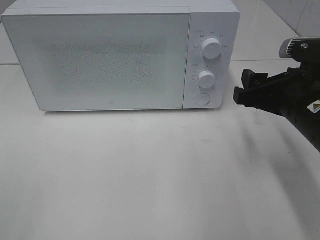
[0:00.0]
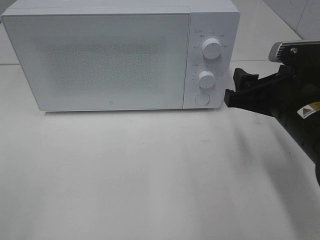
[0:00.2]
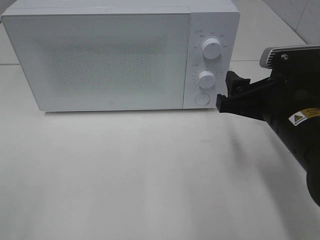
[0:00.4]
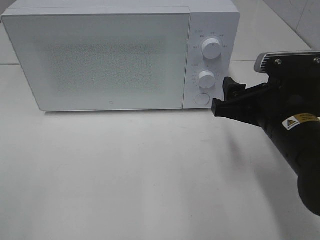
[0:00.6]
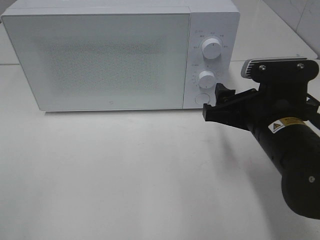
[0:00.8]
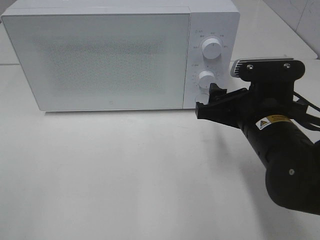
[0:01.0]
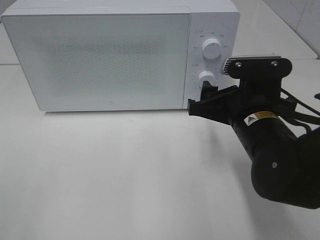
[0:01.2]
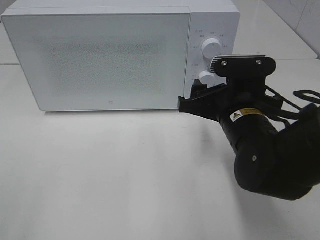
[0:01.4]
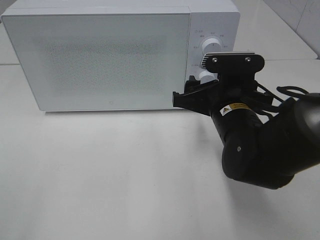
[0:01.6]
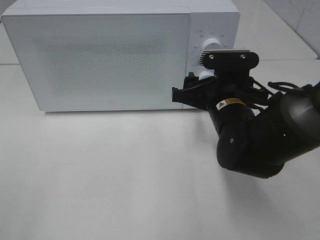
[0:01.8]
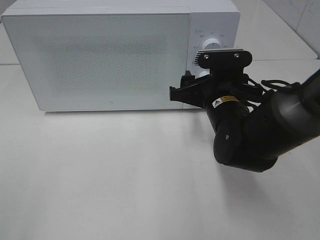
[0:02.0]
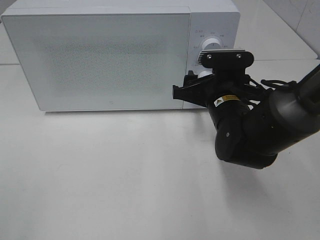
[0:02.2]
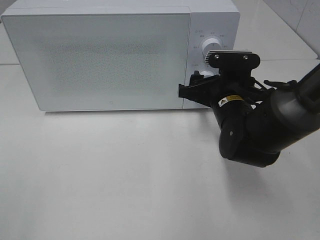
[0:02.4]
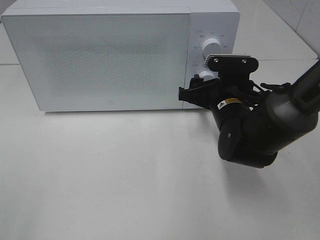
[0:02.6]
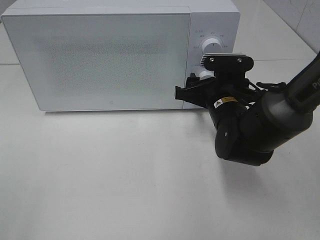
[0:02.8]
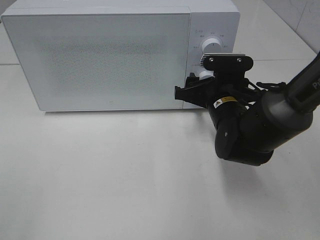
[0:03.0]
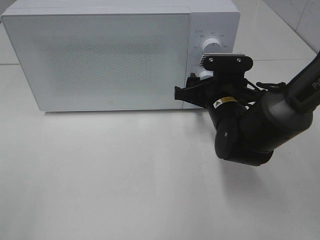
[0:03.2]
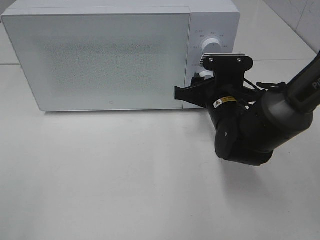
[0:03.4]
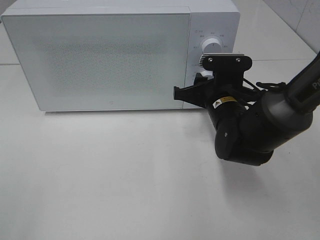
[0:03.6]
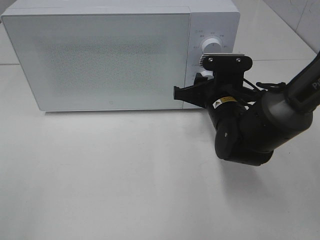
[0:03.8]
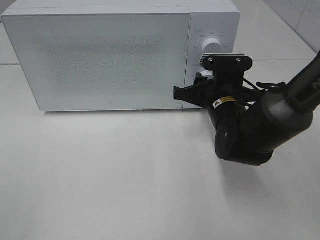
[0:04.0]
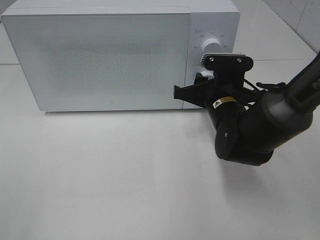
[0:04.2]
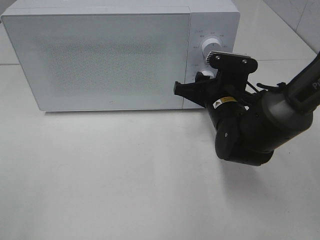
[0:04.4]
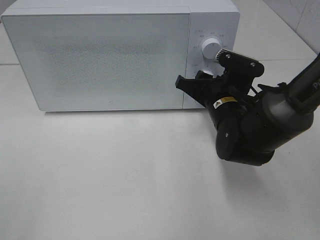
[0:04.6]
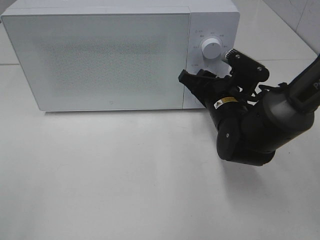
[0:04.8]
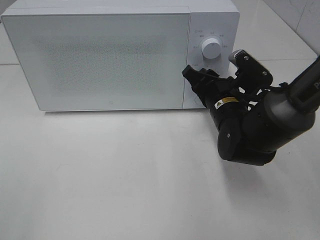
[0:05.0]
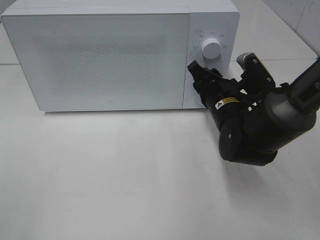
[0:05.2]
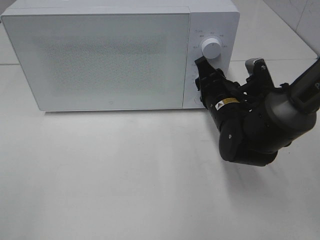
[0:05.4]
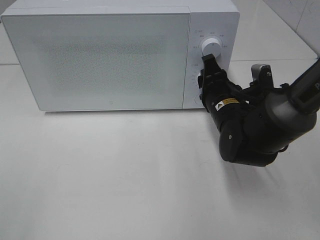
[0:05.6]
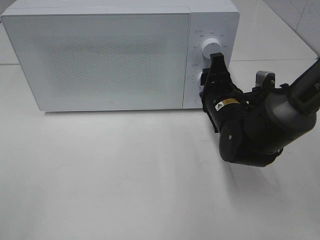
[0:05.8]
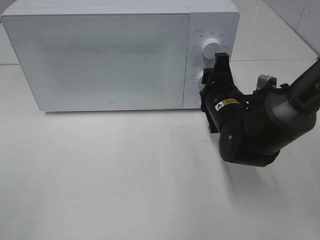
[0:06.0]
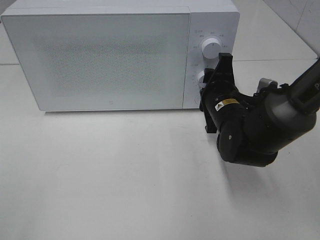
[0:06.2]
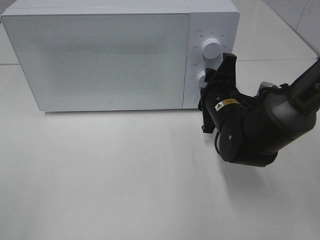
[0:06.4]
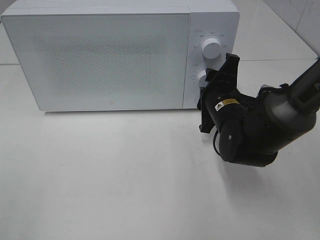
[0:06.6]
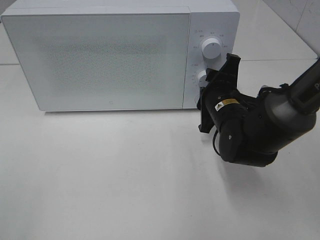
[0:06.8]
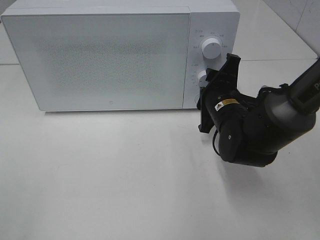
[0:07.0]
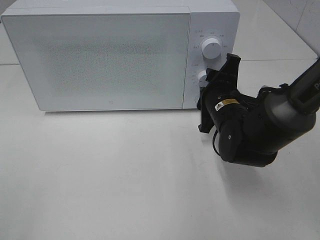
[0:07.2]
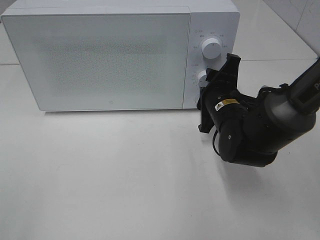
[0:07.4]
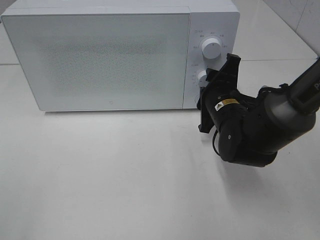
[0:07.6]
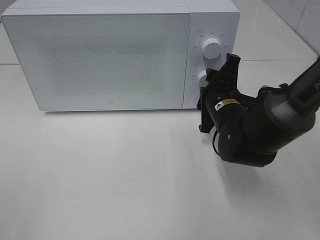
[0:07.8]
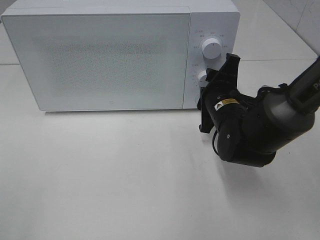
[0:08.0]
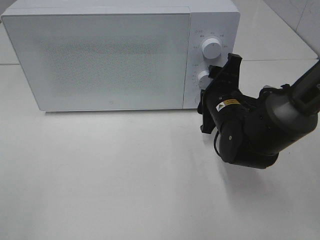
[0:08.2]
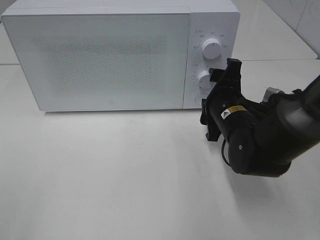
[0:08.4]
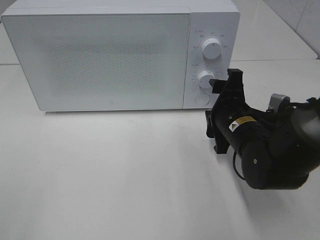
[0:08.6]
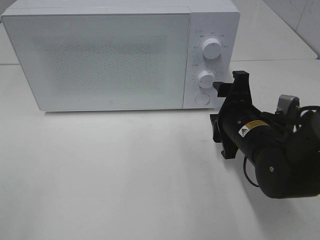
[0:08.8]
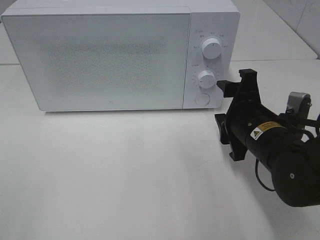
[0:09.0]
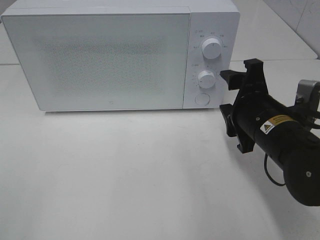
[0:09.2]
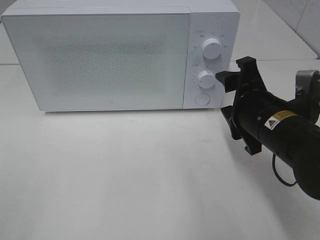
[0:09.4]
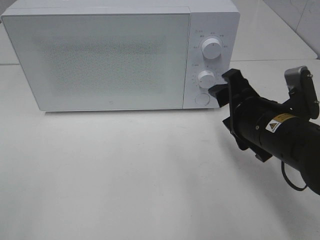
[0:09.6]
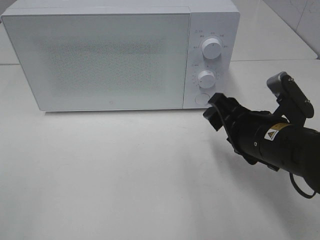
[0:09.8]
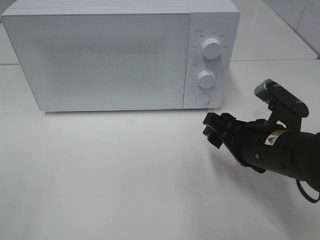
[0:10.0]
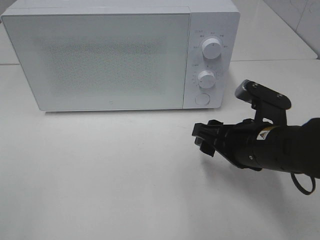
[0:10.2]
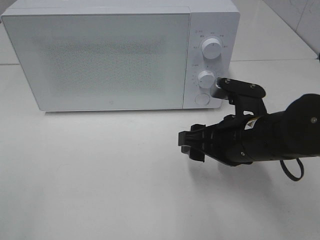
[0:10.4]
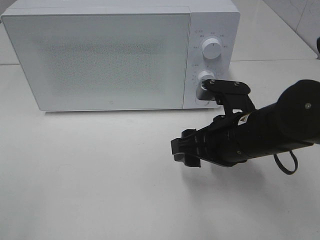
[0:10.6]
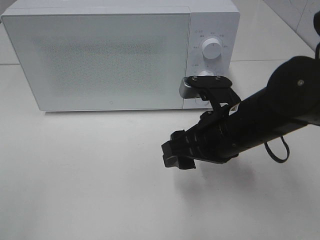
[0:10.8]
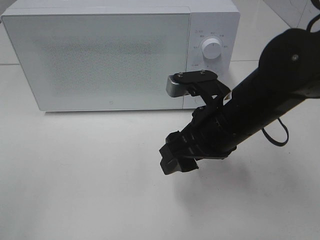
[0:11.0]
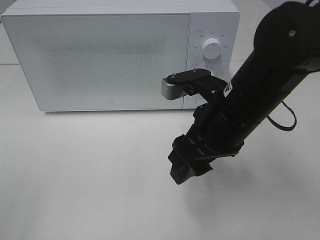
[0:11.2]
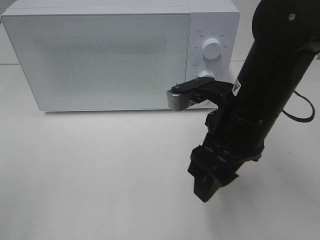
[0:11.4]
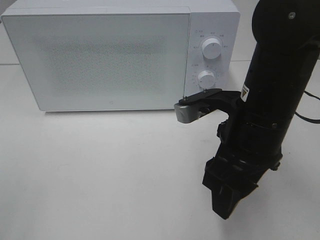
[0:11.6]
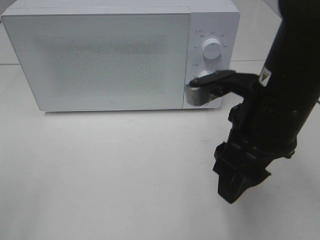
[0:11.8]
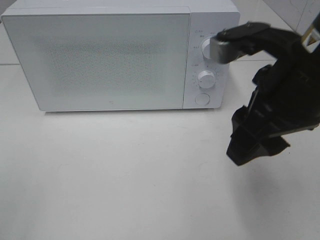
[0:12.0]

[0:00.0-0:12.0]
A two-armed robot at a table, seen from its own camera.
Task of the whole recording: Heat the burger.
Step, 0:00.0 to 0:08.4: Right hand: twist timer button.
0:00.0 to 0:01.6: The right gripper moves to the left, approximately 10 cm.
0:01.6 to 0:03.0: The right gripper moves forward, about 5 cm.
0:03.0 to 0:04.4: The right gripper closes its fingers.
0:06.0 to 0:07.6: The grippers move only a little.
0:07.6 to 0:09.0: The right gripper shifts some 5 cm backward.
0:10.4 to 0:12.0: The right gripper moves upward, approximately 15 cm.

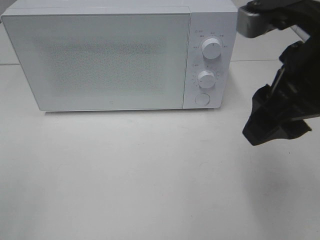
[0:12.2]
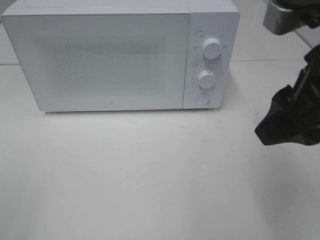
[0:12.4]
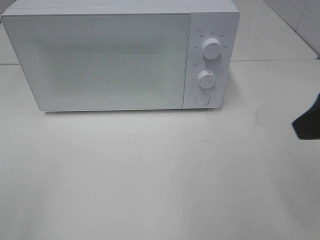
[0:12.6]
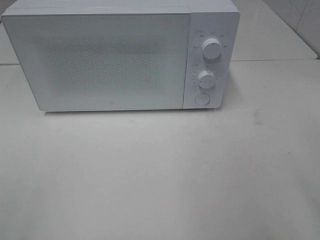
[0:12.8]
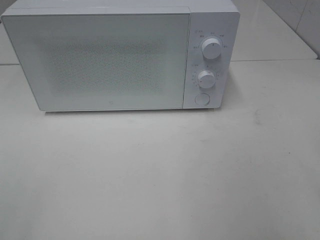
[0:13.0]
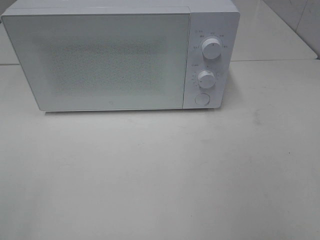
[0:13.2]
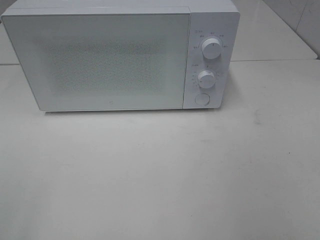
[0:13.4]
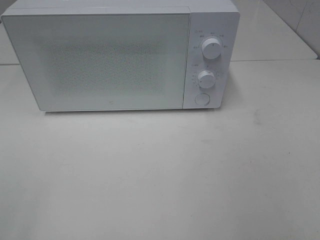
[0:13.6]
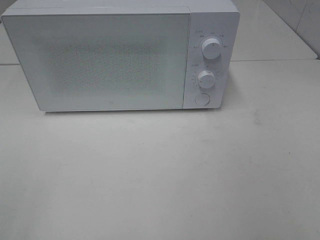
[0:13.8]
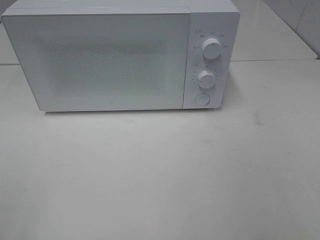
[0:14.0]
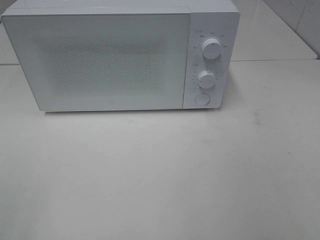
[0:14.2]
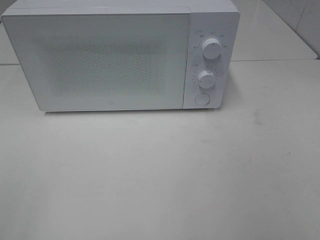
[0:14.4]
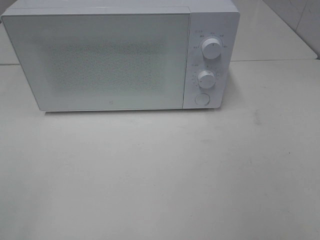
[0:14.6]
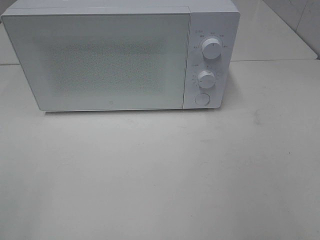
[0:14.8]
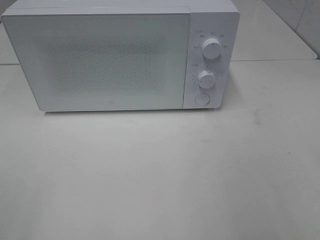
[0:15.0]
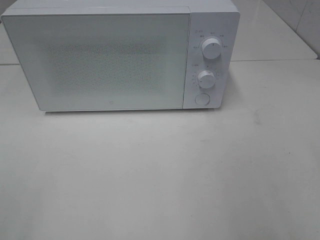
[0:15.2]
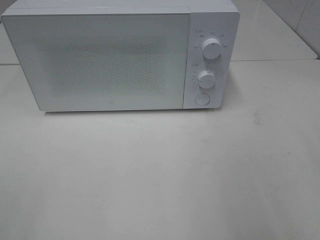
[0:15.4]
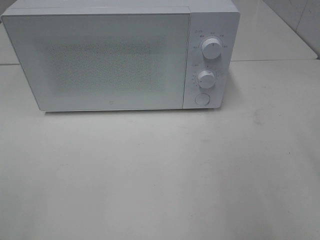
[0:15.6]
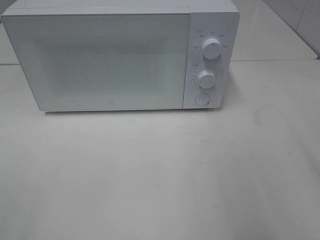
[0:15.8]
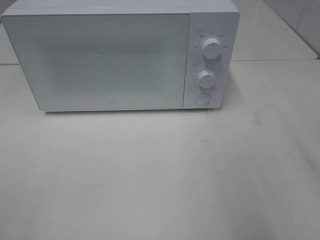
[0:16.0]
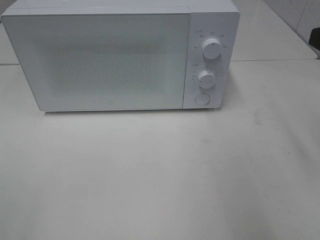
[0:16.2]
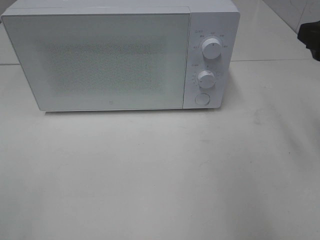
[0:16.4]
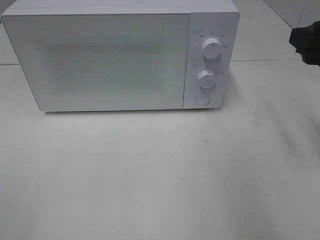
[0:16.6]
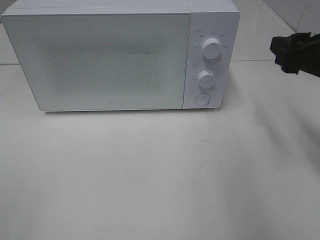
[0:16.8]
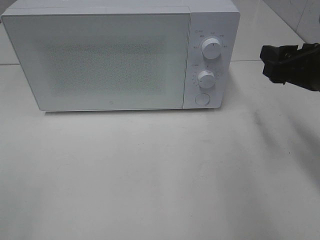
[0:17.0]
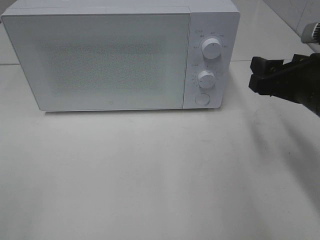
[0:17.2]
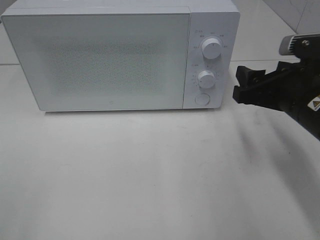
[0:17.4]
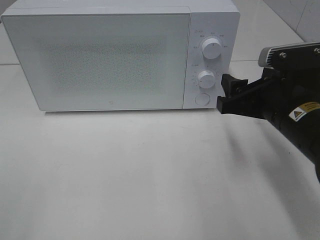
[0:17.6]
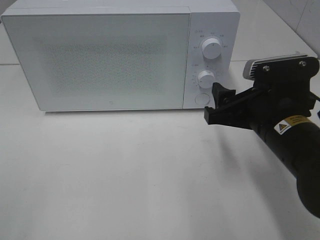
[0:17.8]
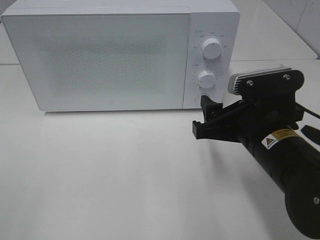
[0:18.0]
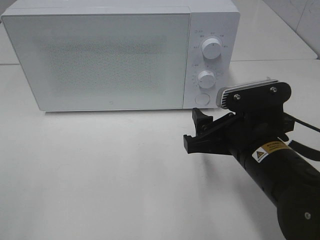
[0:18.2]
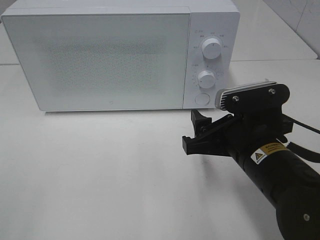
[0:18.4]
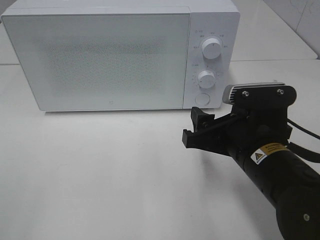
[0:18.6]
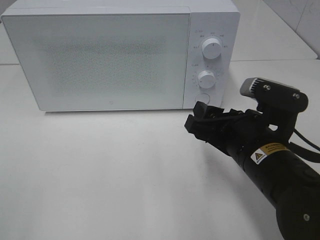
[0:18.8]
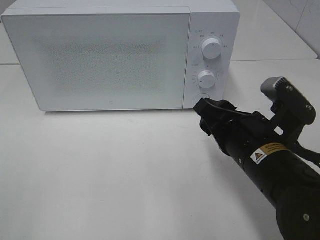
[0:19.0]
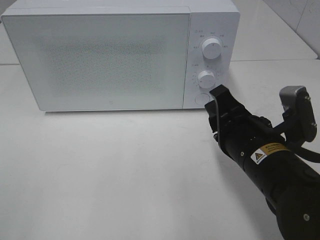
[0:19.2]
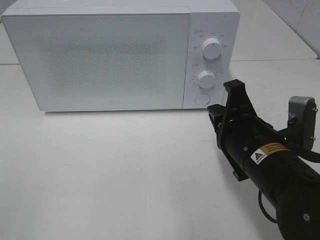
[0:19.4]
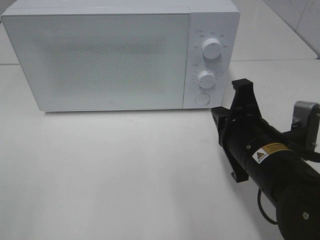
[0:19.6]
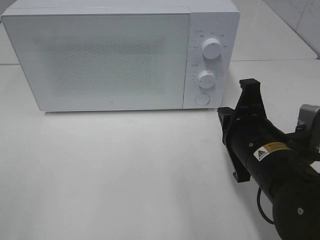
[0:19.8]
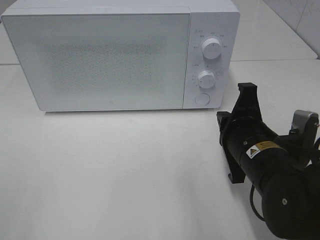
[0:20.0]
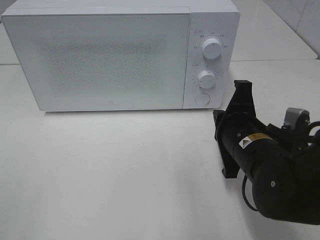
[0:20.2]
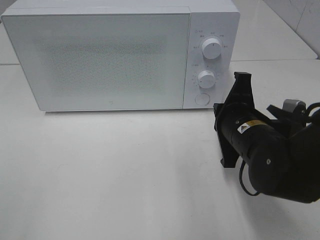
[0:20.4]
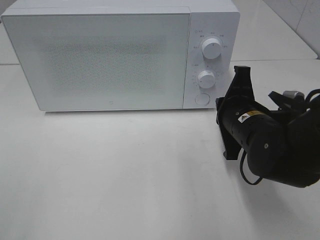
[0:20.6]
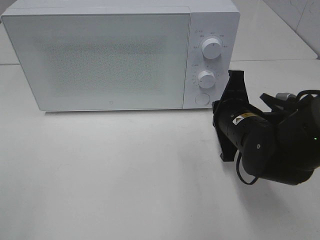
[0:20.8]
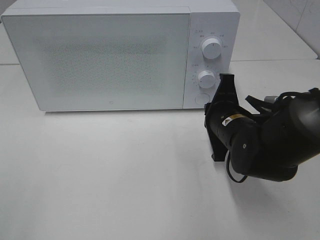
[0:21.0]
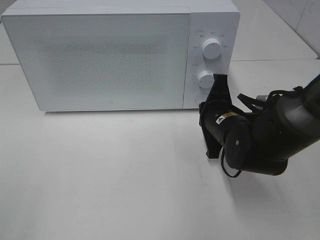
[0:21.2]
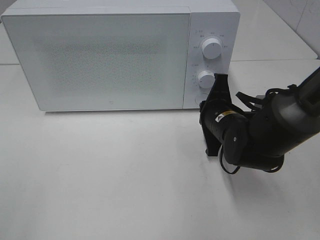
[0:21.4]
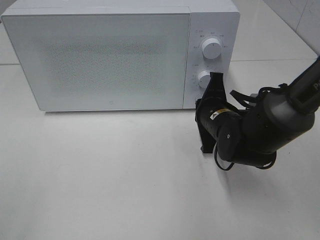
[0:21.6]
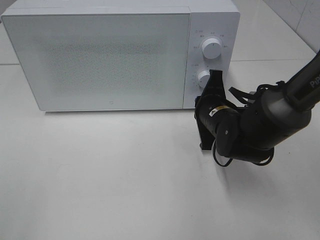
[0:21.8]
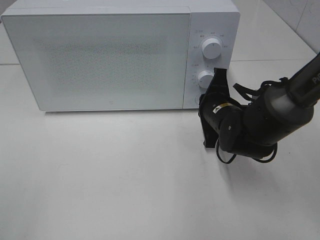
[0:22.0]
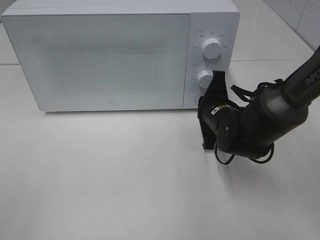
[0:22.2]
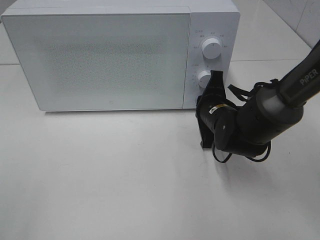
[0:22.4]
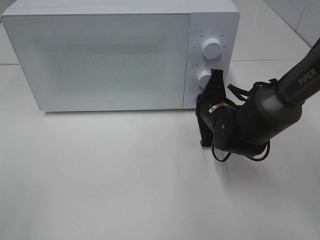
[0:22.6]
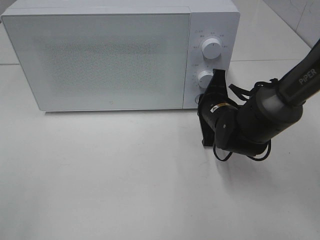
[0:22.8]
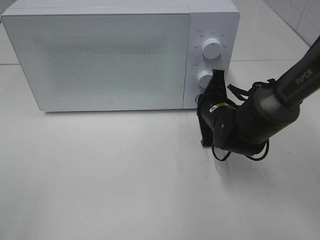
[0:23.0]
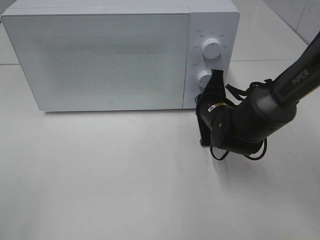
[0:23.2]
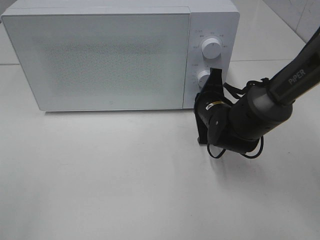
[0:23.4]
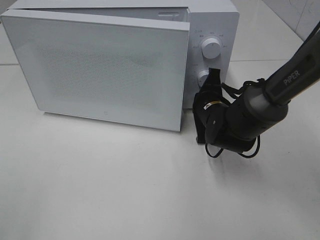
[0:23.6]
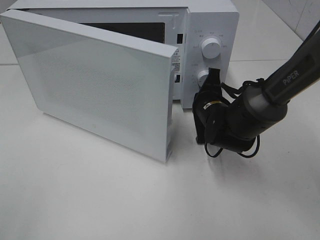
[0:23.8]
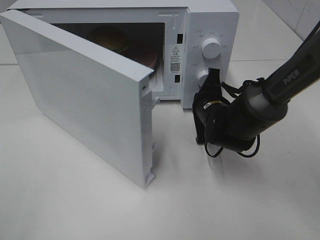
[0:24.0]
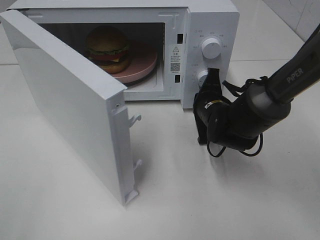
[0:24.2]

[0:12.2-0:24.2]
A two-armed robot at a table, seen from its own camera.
Task of the whole recording: Heat the burger.
0:12.2 to 0:13.8: The right gripper heads backward and to the right, covering about 20 cm.
0:15.2 to 0:16.6: The right gripper moves forward, some 15 cm.
0:16.6 to 0:18.2: The right gripper shifts roughly 20 cm to the left and downward.
0:18.2 to 0:19.8: The right gripper closes its fingers.
0:19.8 to 0:21.2: The right gripper goes some 10 cm forward.
0:21.2 to 0:22.6: The grippers move only a little.
